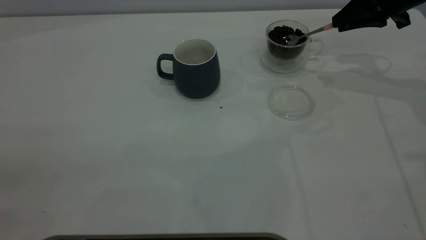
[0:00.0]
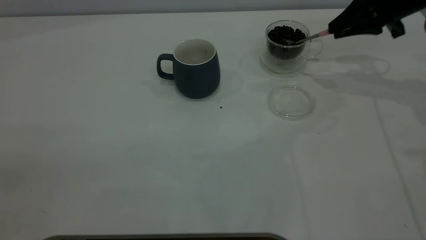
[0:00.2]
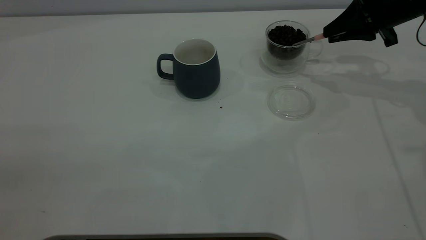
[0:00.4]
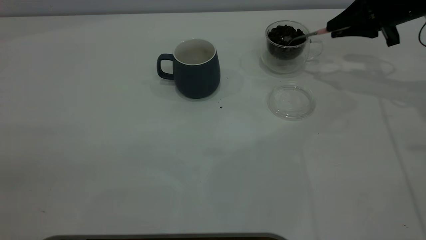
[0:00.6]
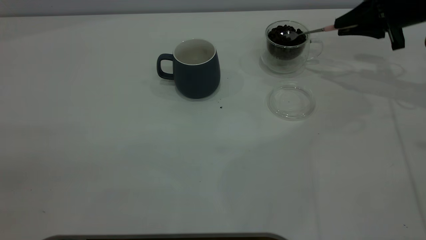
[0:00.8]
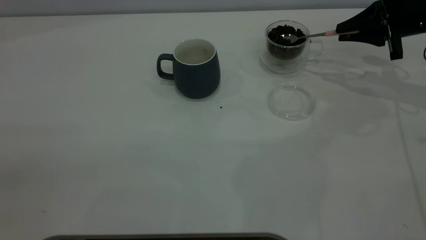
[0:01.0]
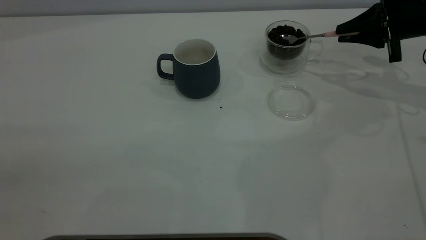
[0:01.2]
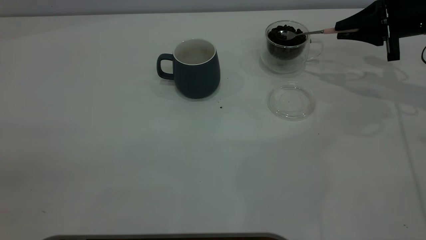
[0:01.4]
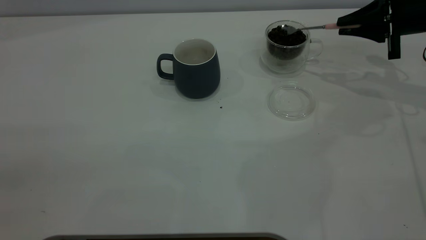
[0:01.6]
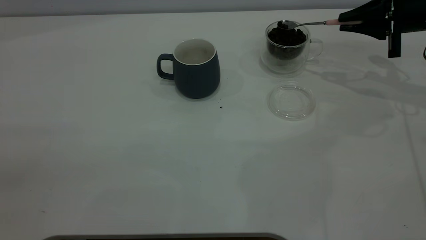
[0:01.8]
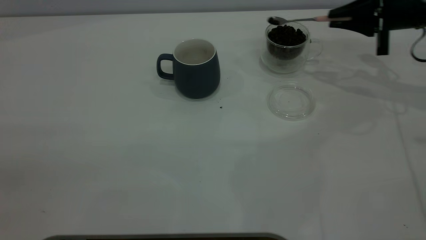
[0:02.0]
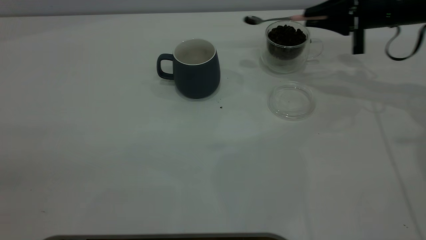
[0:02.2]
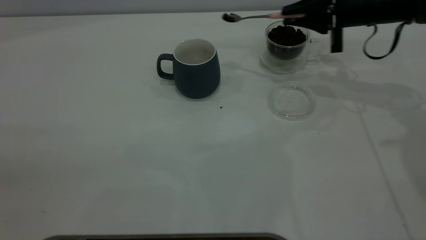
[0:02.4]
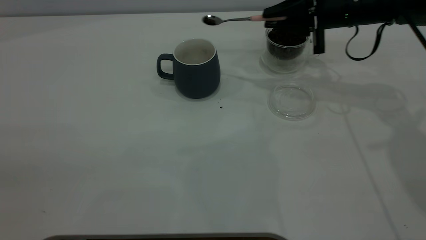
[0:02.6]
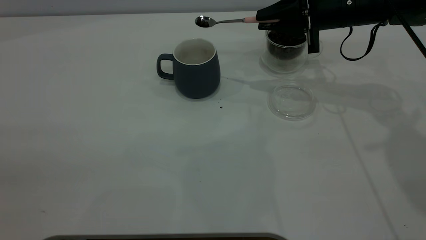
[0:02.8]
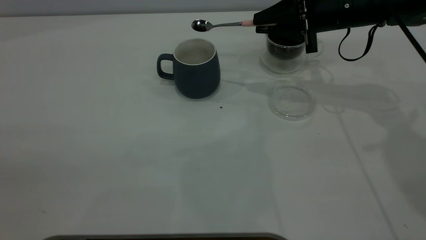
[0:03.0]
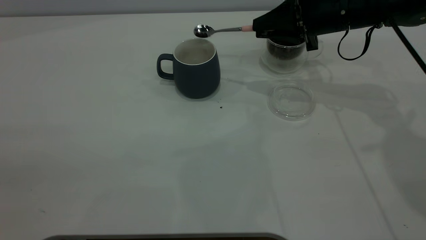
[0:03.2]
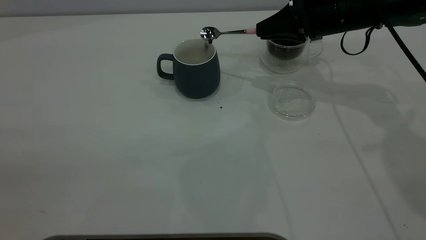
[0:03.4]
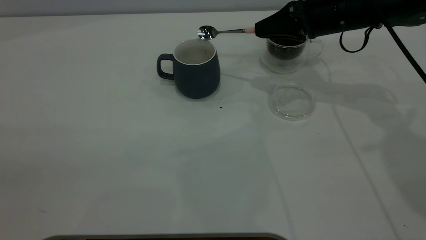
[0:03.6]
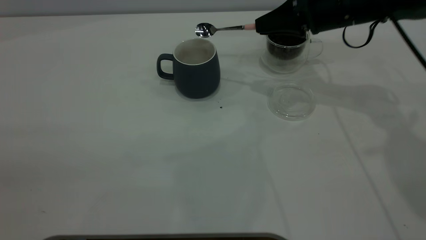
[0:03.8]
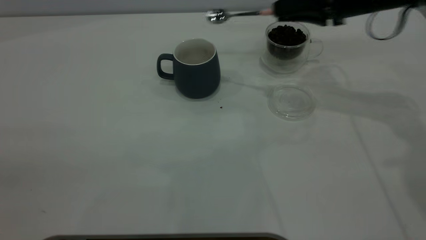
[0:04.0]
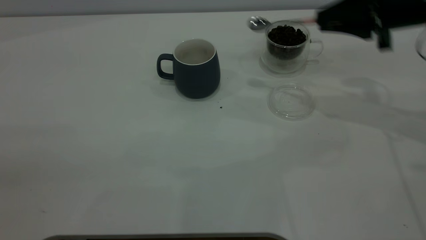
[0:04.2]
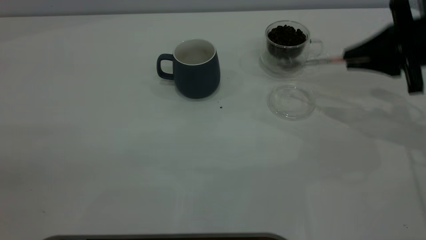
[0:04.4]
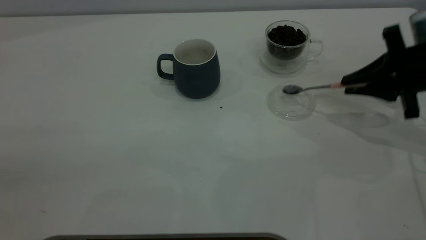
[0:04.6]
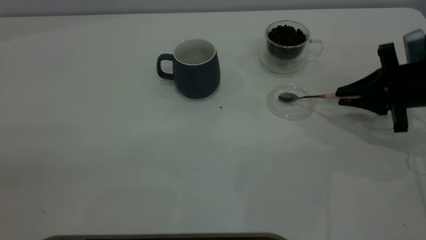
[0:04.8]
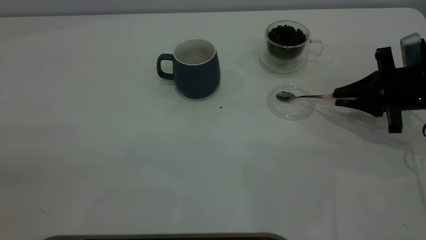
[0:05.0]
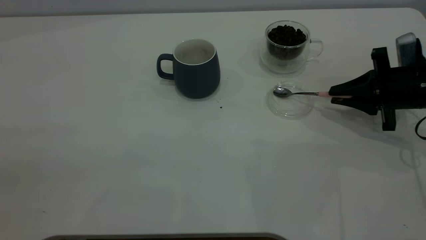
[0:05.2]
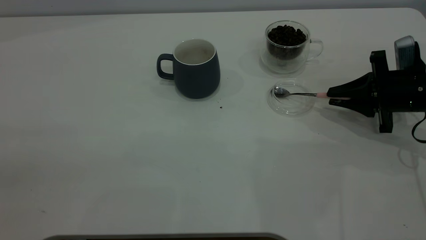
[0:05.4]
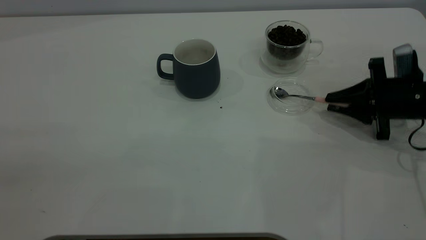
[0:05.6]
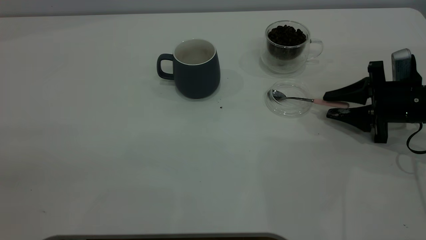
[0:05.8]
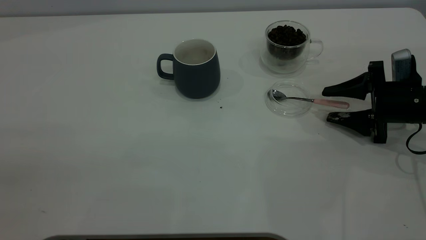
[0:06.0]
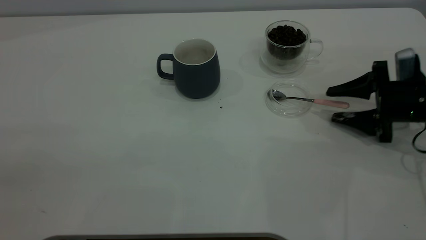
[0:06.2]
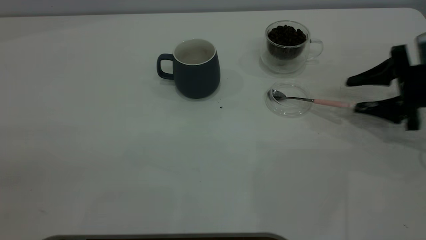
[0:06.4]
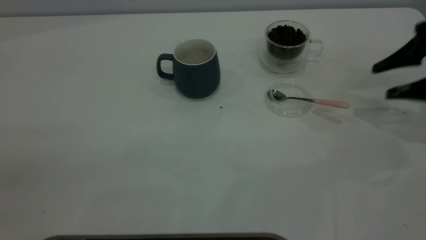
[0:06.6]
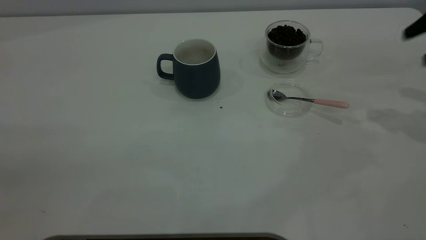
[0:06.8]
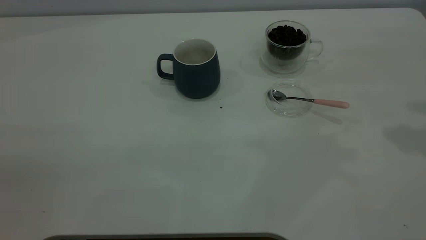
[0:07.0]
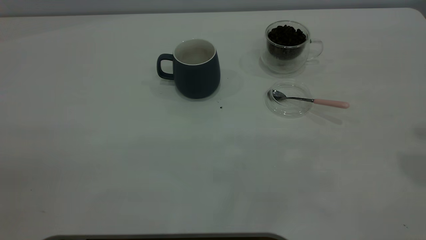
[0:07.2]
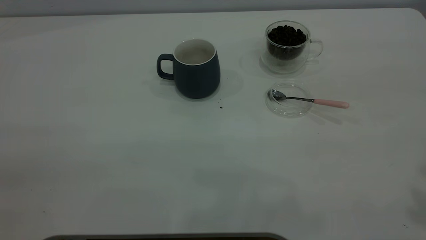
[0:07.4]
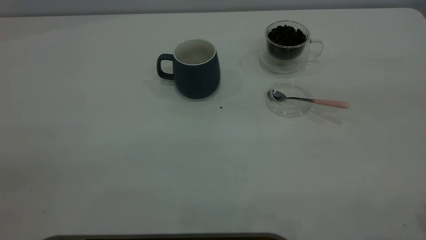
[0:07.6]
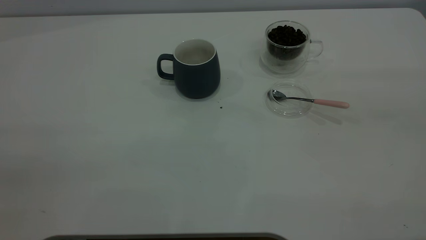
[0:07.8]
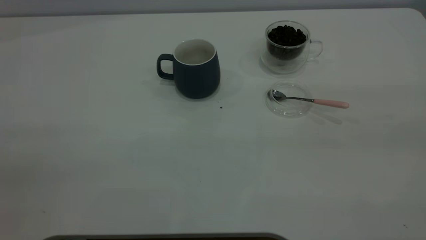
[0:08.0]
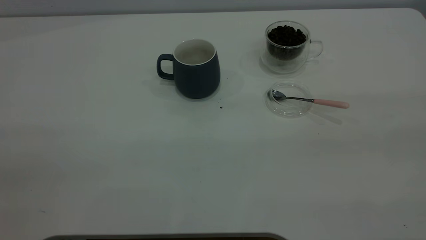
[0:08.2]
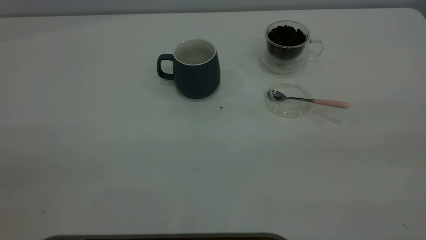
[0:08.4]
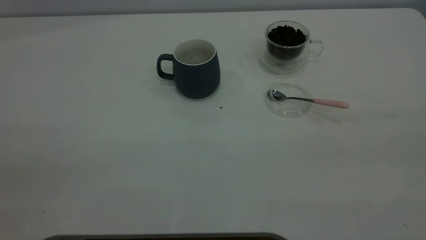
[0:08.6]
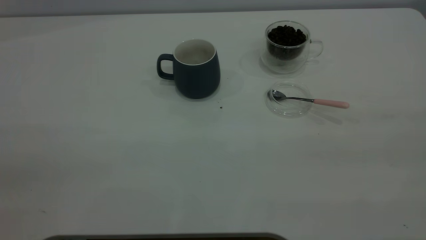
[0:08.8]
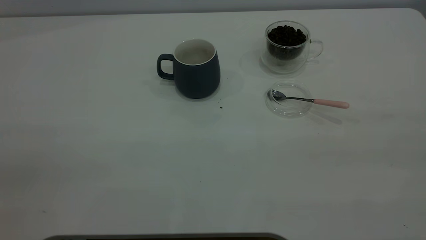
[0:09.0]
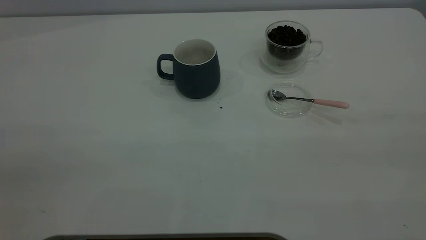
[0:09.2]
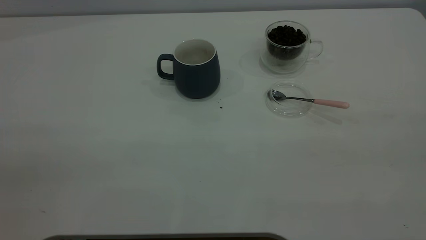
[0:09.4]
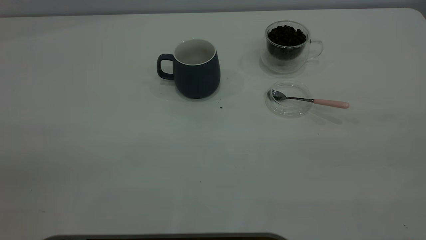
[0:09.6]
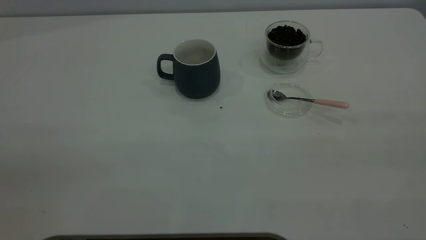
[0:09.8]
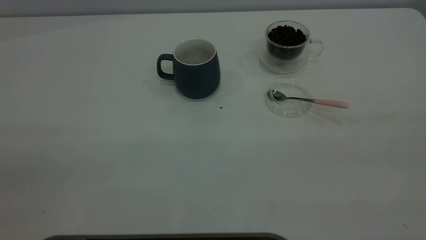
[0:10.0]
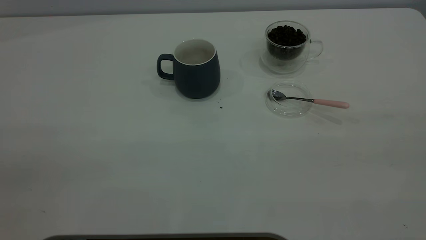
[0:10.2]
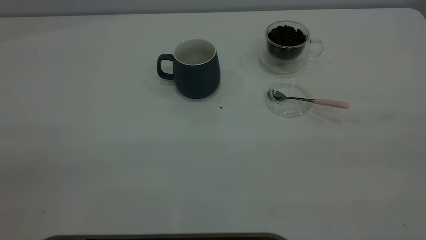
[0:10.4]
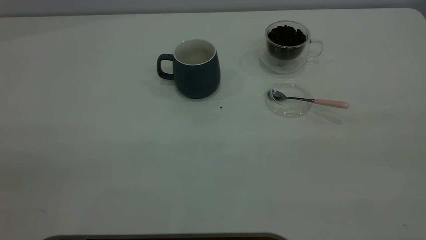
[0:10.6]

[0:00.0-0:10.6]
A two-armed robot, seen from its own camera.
Task of the whole recording: the left gripper place the grey cup in the center of the table, the right gripper take the pink spoon from the cup lid and scoop out the coffee beans from the coffee cup and put them into the grey cup, the right gripper put the spoon back into the cup lid.
Step, 0:00.0 to 0:03.6: Scoop a spoonful of beans into the cup.
Step, 0:04.0 to 0:06.4: Place the spoon back in its original place.
0:00.0 to 0:01.6: The right gripper moves about 5 cm.
0:01.6 to 0:03.0: The right gripper is displaced to the left by about 15 cm.
0:03.0 to 0:04.6: The right gripper is displaced to the right and backward by roughly 15 cm.
0:04.6 to 0:06.0: The right gripper travels downward by about 5 cm, and opens its fingers.
0:06.0 to 0:07.6: The right gripper travels upward and backward by some 40 cm.
